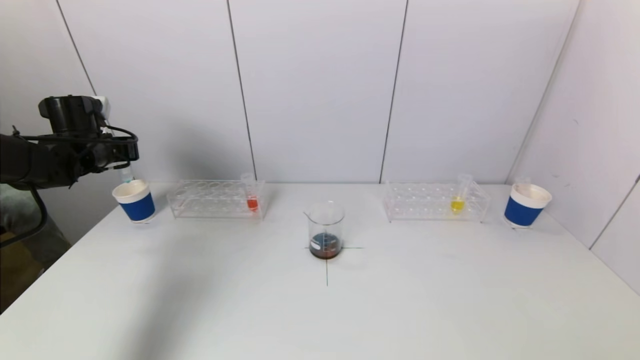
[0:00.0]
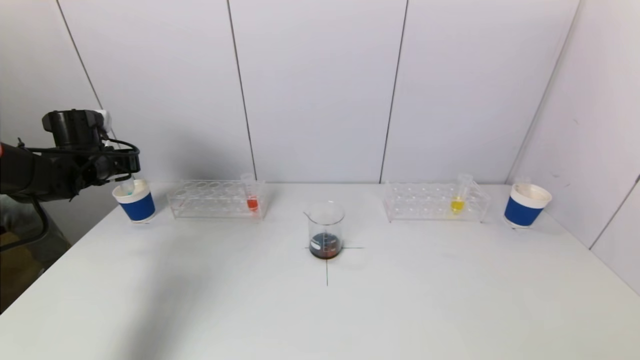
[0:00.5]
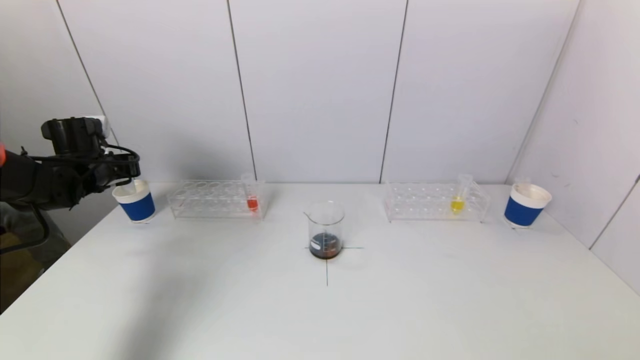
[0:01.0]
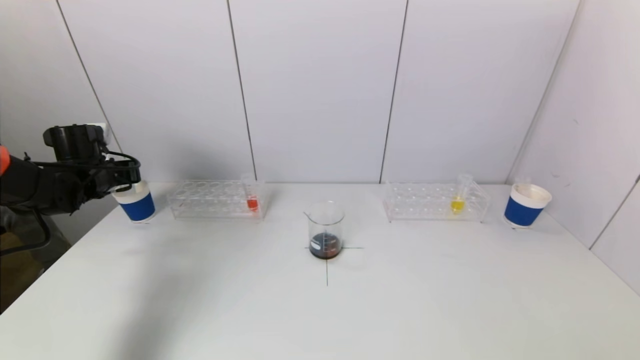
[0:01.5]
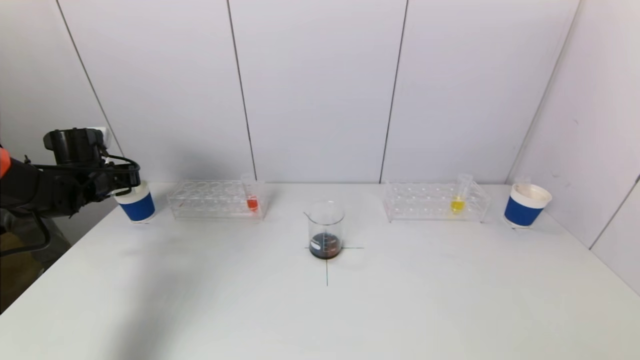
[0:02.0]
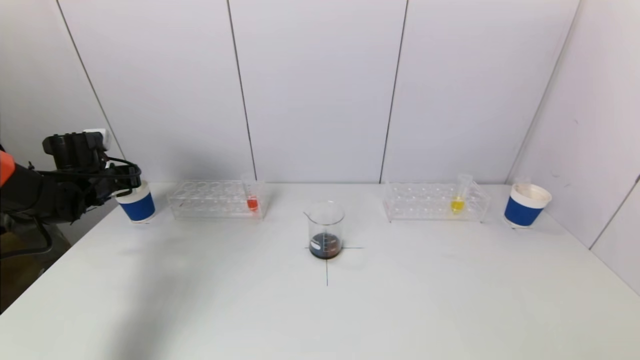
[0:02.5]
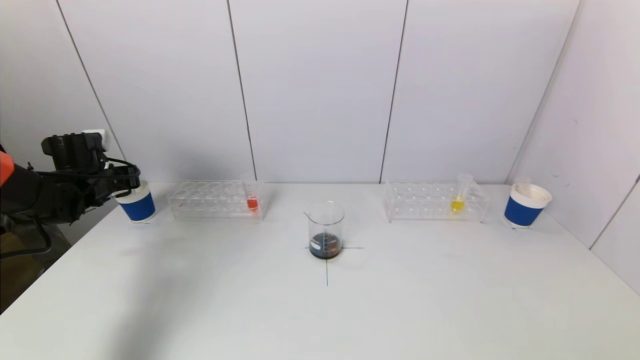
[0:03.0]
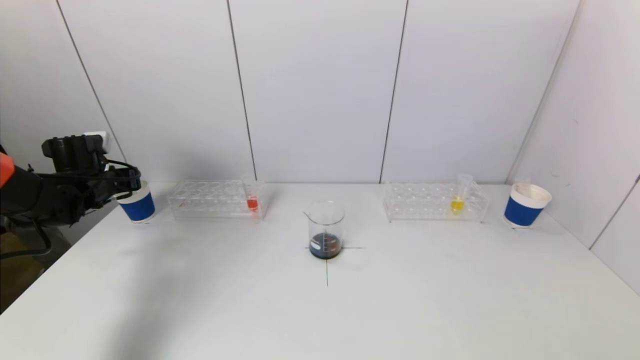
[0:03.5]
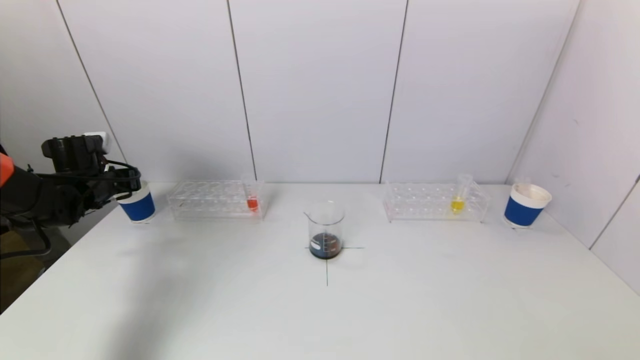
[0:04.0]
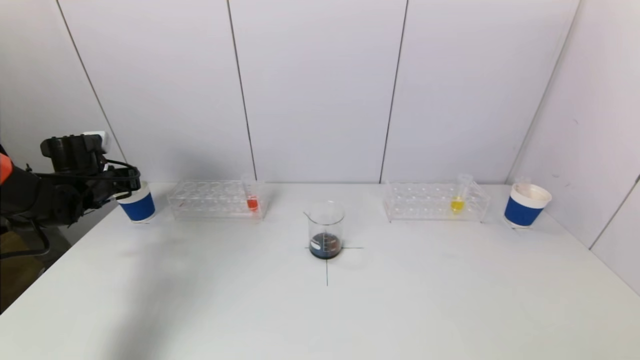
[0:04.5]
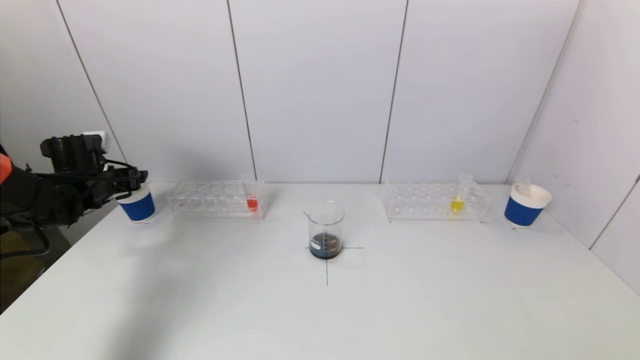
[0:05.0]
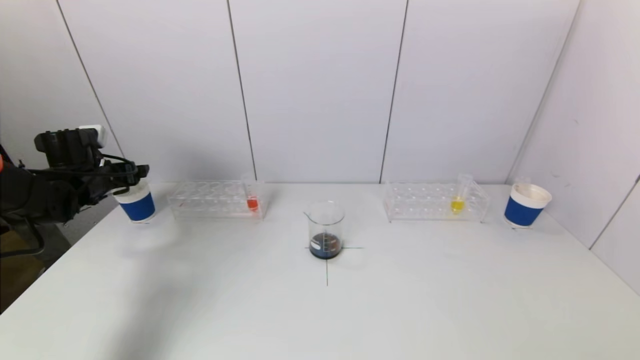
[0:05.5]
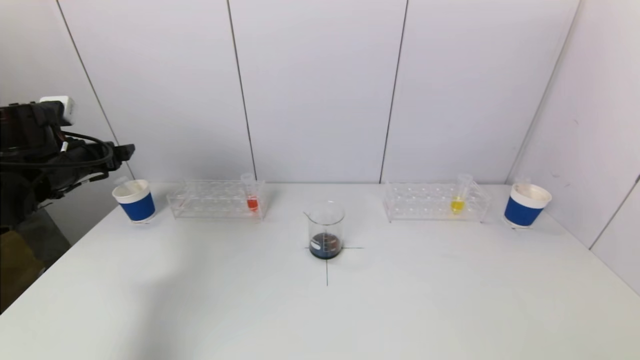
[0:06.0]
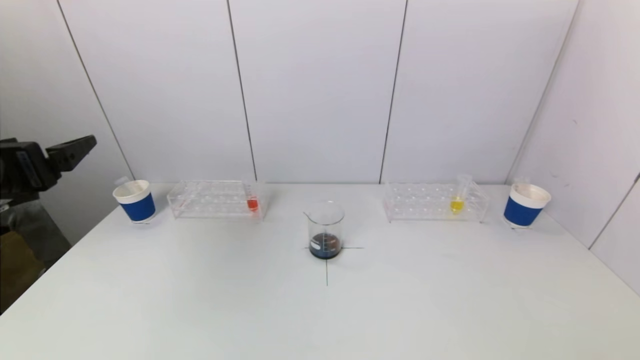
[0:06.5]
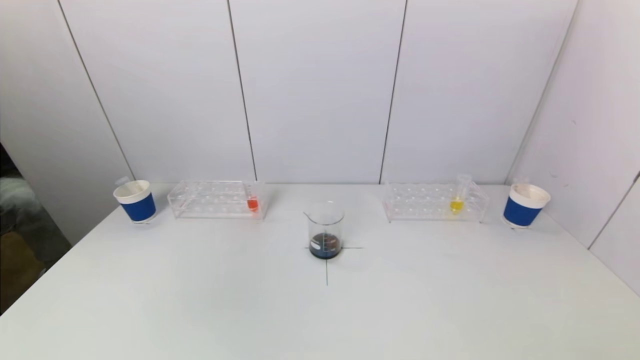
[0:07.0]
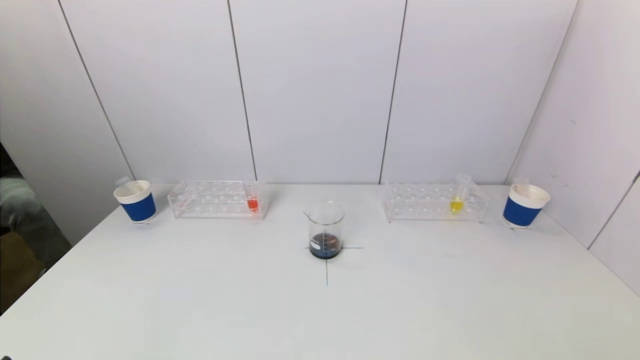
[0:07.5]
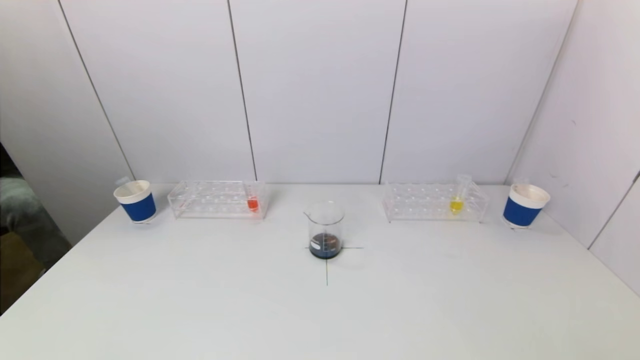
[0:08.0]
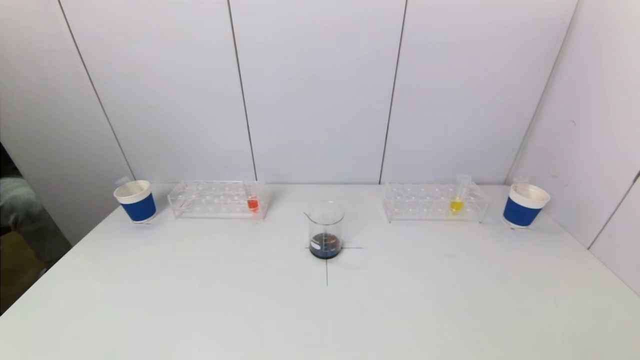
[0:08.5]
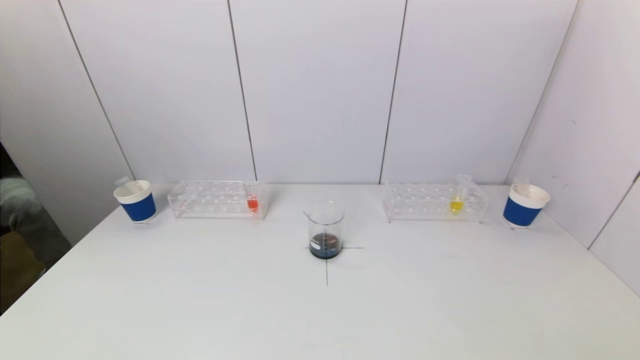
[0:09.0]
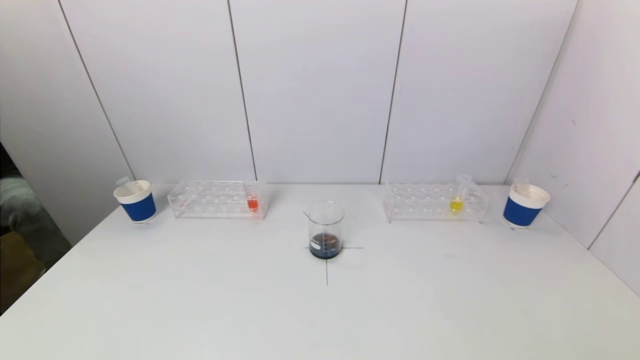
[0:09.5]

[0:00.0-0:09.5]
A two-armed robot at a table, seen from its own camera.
Task of the whole recording: pick up a test tube with pigment on left test tube rack and a test tube with pigment on right test tube rack by grippers and pour them into the beaker.
Step, 0:00.0 to 0:05.0: Place the test tube into the paper cup with the left gripper.
0:00.0 to 0:02.0: The left gripper travels downward by some 5 cm.
0:02.0 to 0:04.0: Neither gripper changes place.
0:04.0 to 0:05.5: The left gripper opens its fingers.
0:05.5 to 0:07.5: The left gripper goes some 40 cm backward.
